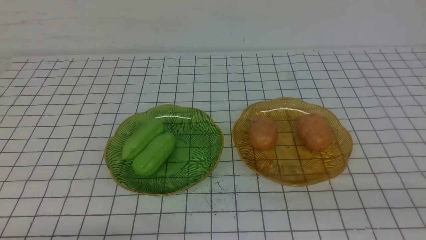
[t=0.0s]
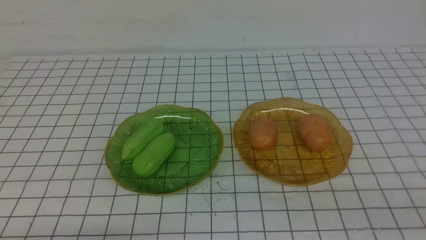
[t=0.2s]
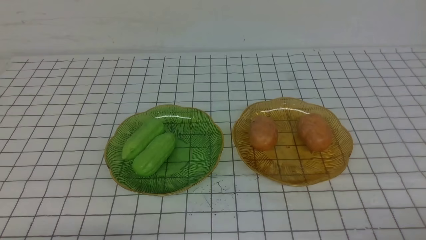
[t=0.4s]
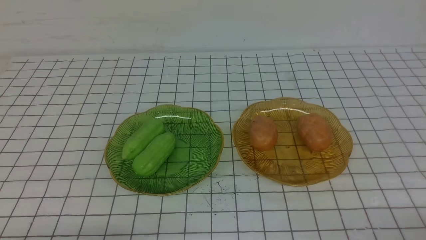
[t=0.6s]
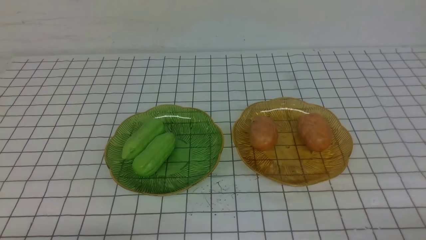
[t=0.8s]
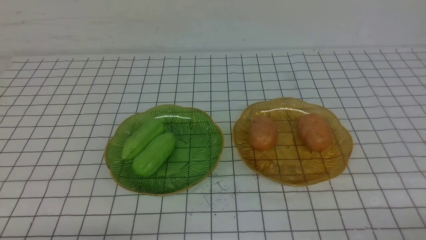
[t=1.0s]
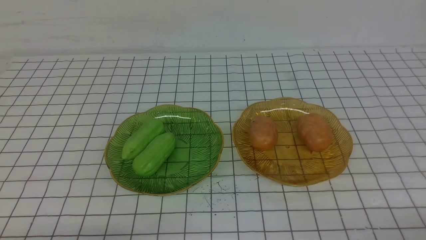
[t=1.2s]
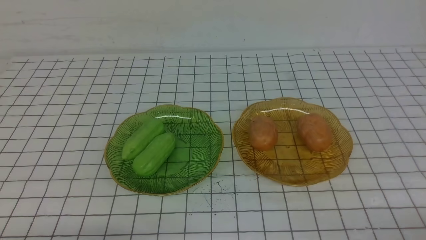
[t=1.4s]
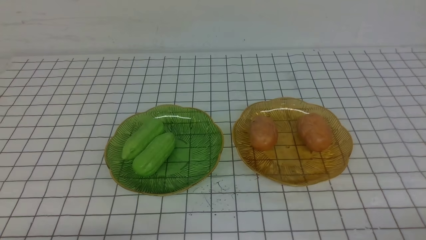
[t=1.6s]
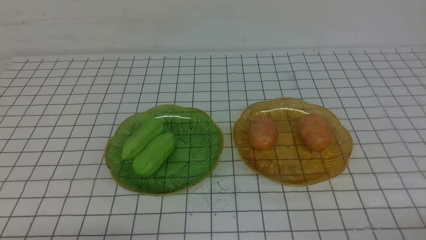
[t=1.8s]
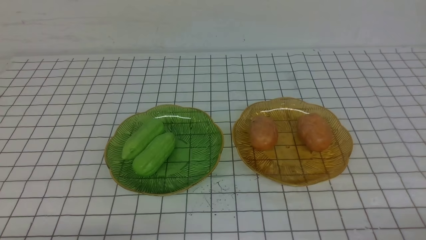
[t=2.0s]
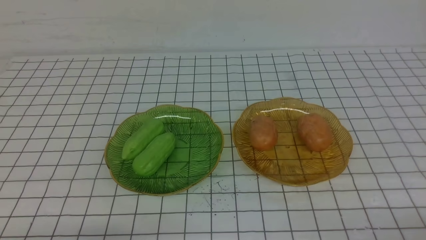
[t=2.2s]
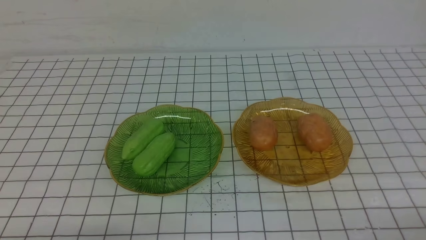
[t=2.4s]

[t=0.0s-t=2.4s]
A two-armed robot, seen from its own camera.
t=1.2s to t=2.4s: Both grippers stay put.
